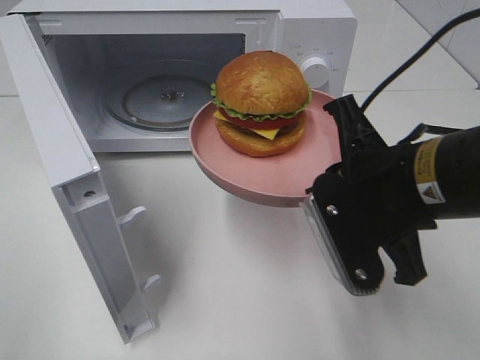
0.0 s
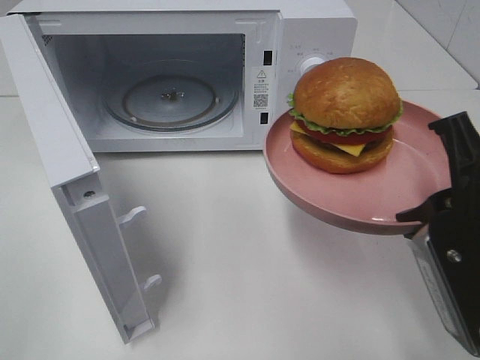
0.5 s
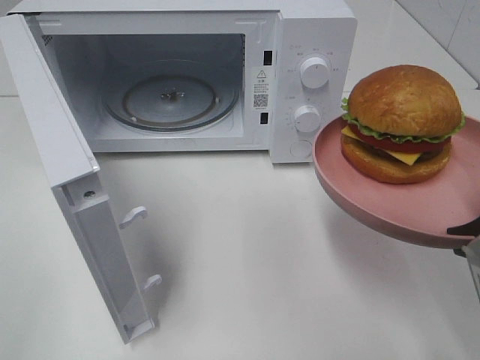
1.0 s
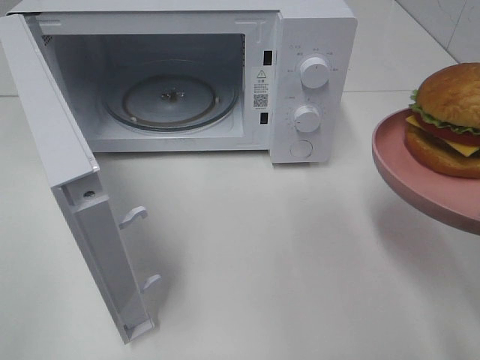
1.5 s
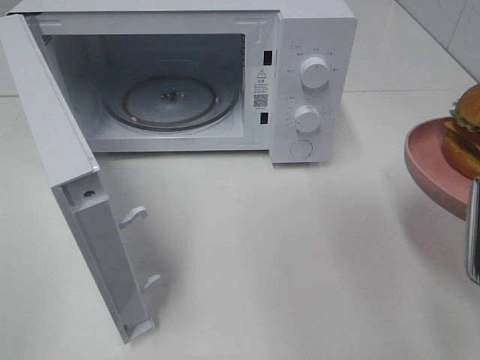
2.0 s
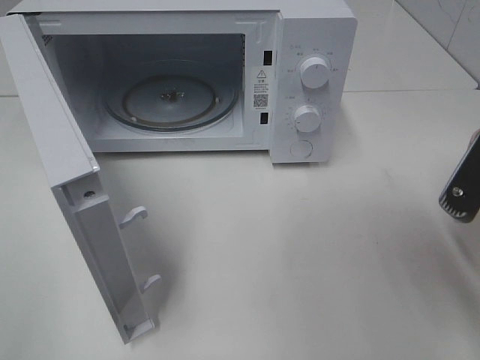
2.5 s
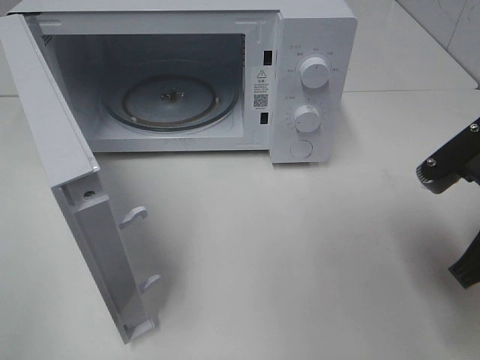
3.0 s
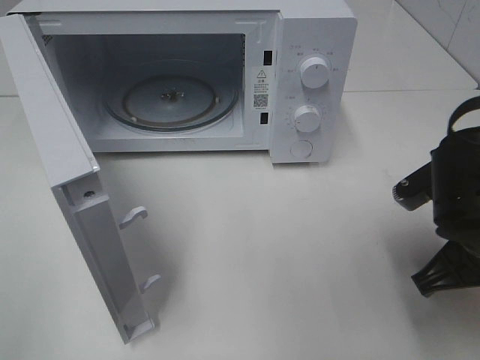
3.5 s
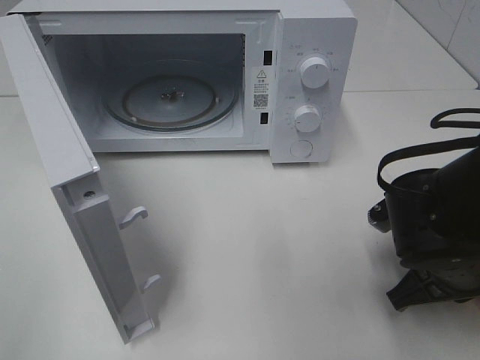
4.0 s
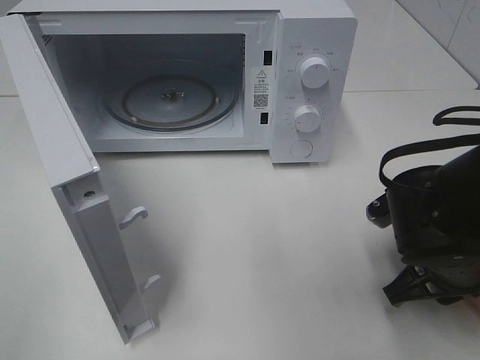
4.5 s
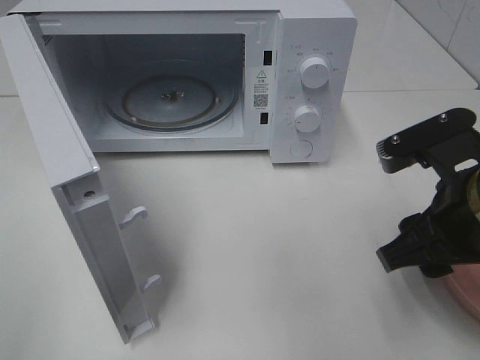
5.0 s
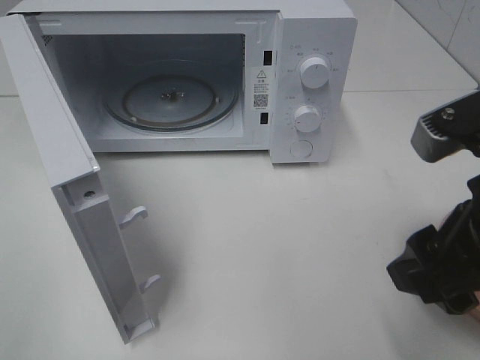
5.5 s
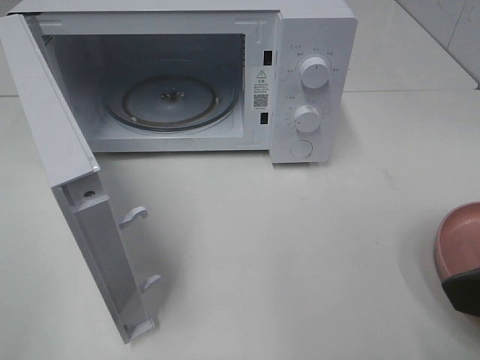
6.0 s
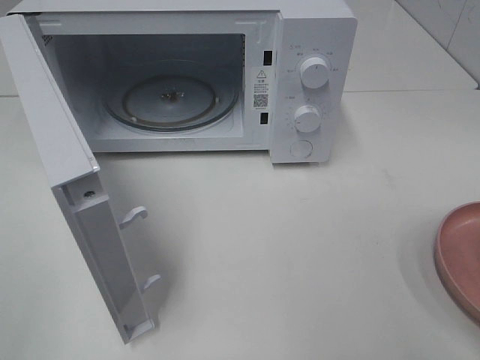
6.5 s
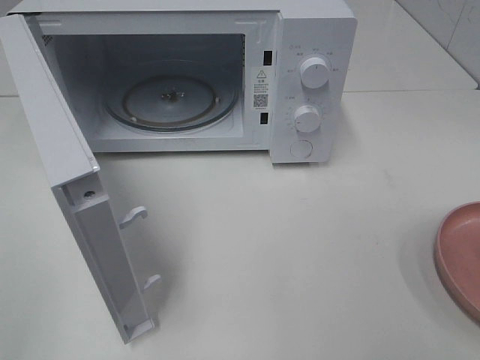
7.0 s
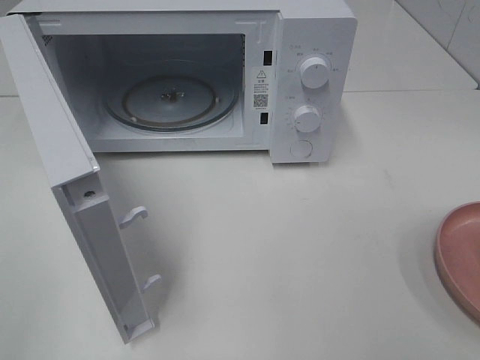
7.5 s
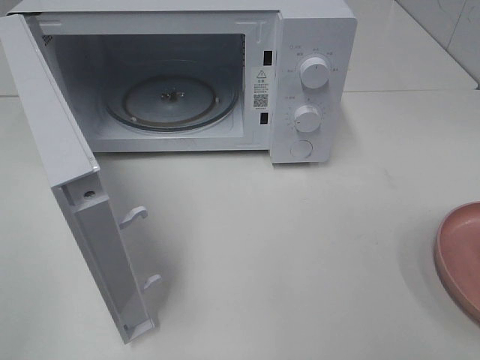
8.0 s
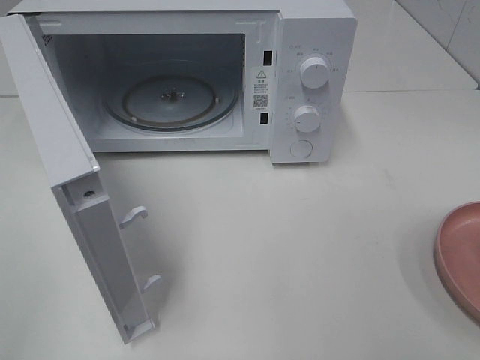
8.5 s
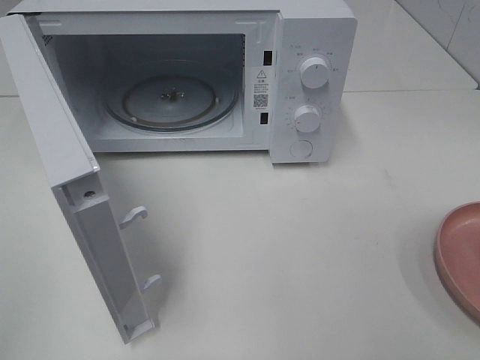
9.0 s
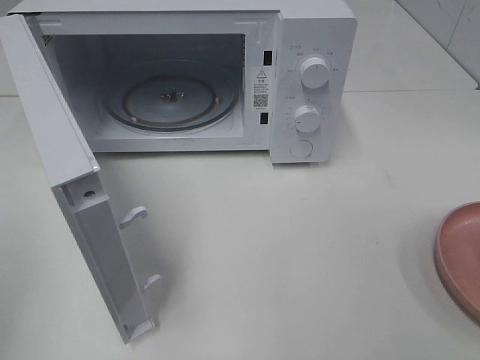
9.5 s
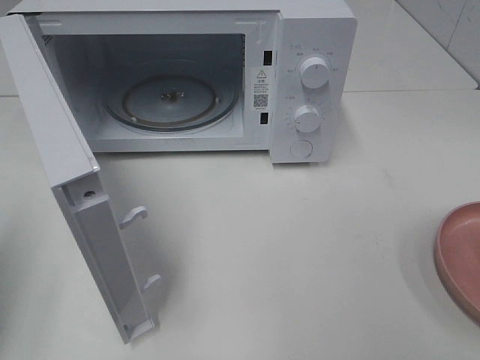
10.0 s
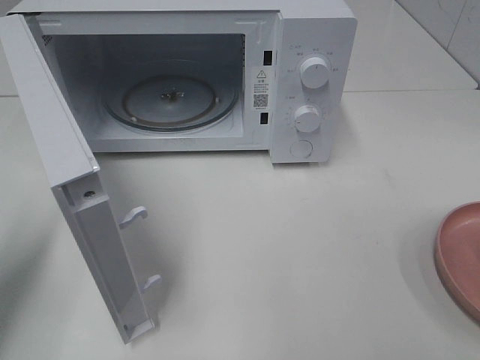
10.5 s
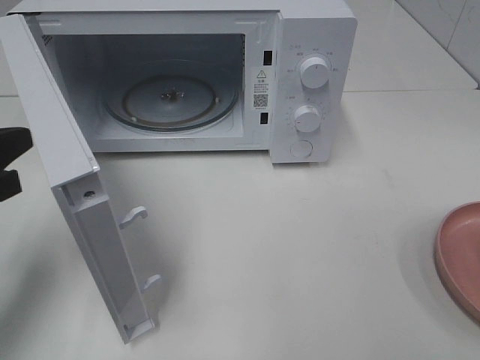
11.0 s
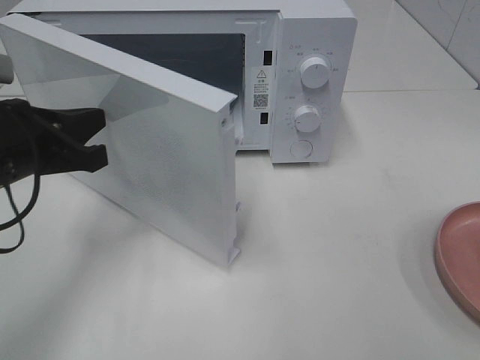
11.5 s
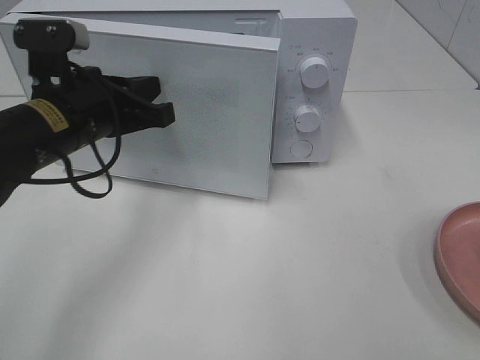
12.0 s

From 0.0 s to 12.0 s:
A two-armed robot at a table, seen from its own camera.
Task of the whole recording: Heat the burger.
Step, from 0.0 s to 4.5 s: Right hand: place the plate on the table.
From 0.0 s to 2.0 s: The right gripper goes approximately 10 cm to the right and backward.
From 2.0 s to 4.0 s: The right gripper travels downward and forward by roughly 15 cm.
From 4.0 s to 6.0 s: The right gripper is displaced upward and backward by about 20 cm, and opens up.
From 6.0 s to 8.0 s: The right gripper shifts approximately 15 cm backward and to the right.
From 8.0 s to 10.0 s: The left gripper travels forward by about 15 cm, and closes.
From 10.0 s to 12.0 s: The left gripper shifts some 25 cm to the right and forward.

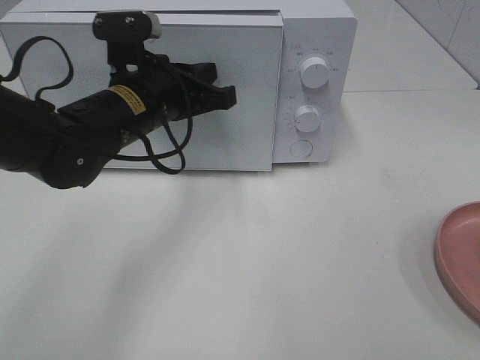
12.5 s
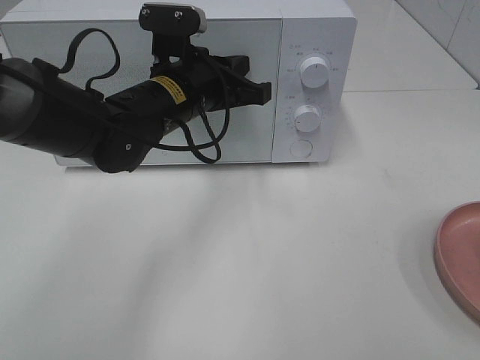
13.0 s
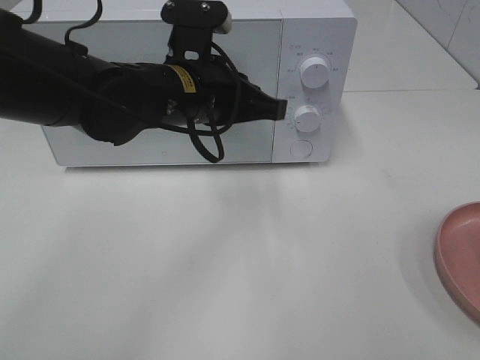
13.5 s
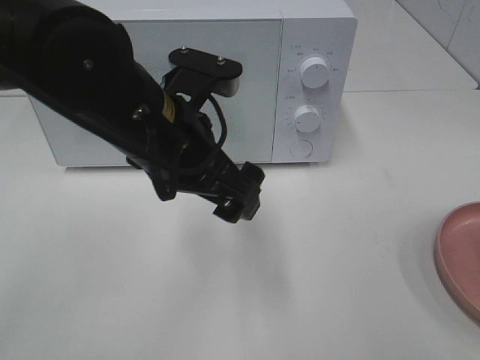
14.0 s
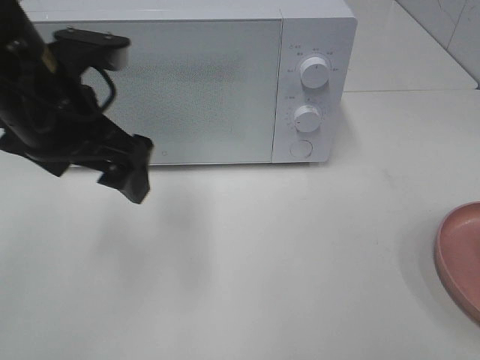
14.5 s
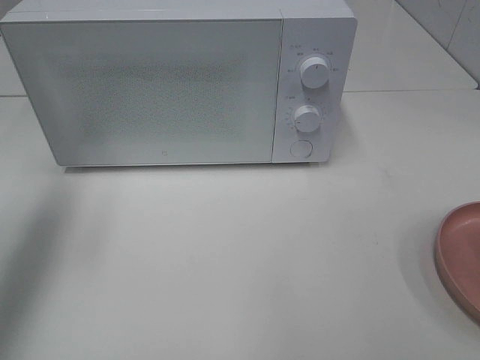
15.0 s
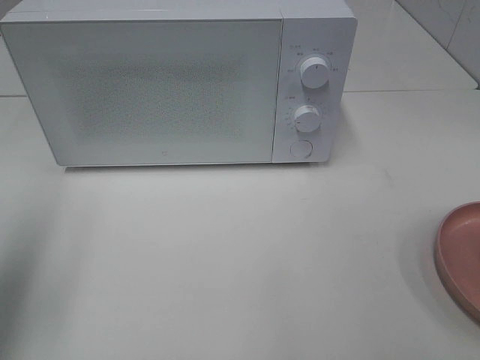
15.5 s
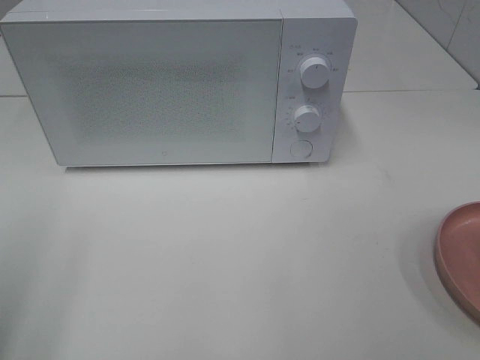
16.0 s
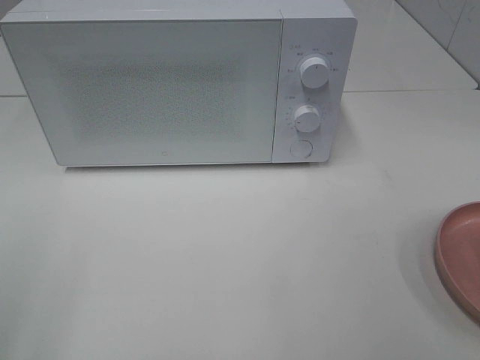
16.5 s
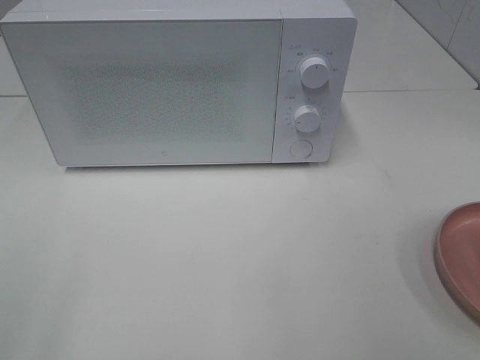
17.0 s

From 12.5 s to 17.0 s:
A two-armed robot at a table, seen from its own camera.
Task of the whole recording: Heat the burger.
From 12.5 s to 14.5 s: The left gripper is displaced upward, backward and to the left by some 10 cm, and opens up.
From 14.5 s to 17.0 s: The left gripper is displaced backward and to the left by some 30 cm.

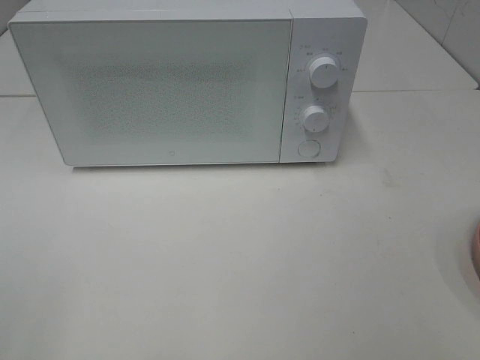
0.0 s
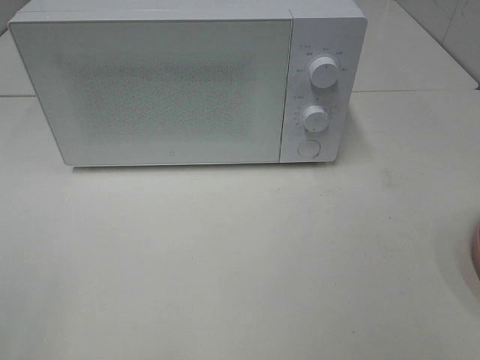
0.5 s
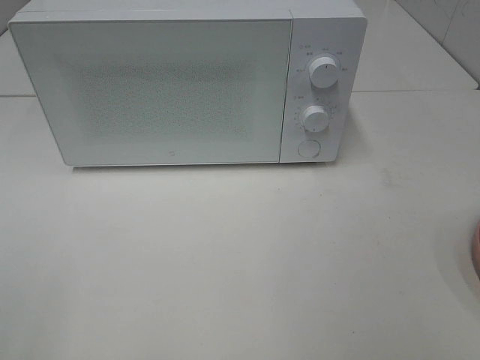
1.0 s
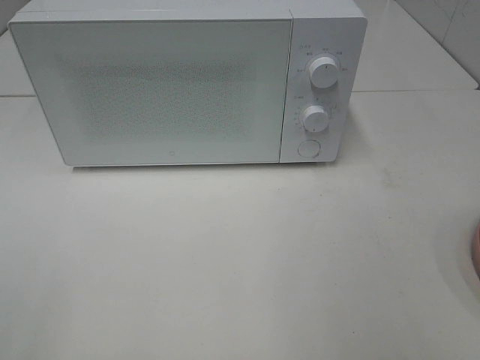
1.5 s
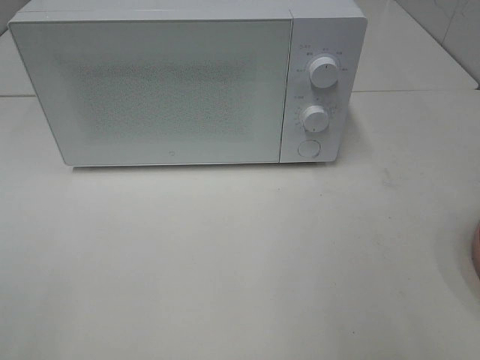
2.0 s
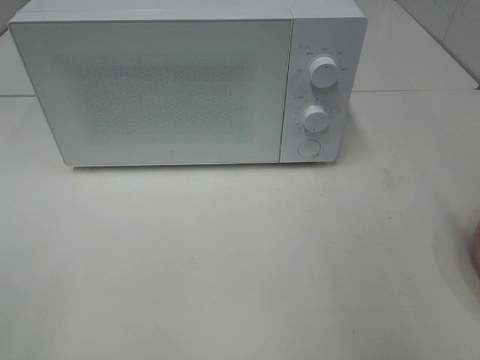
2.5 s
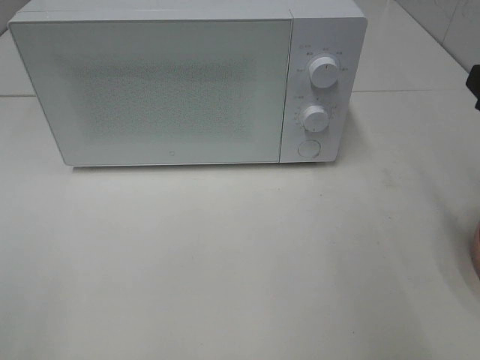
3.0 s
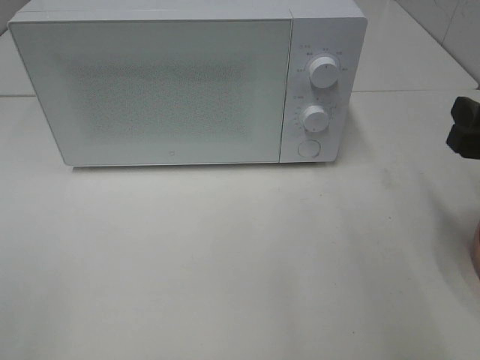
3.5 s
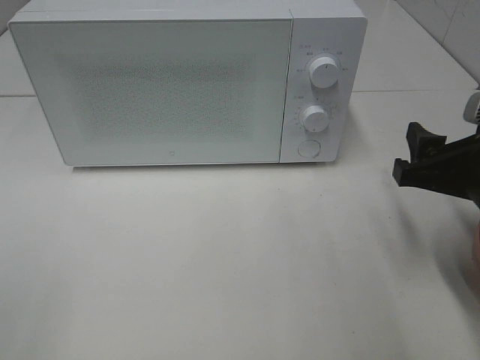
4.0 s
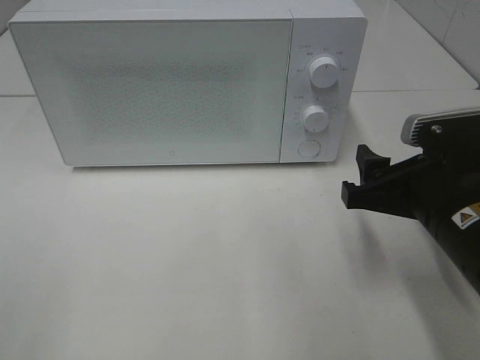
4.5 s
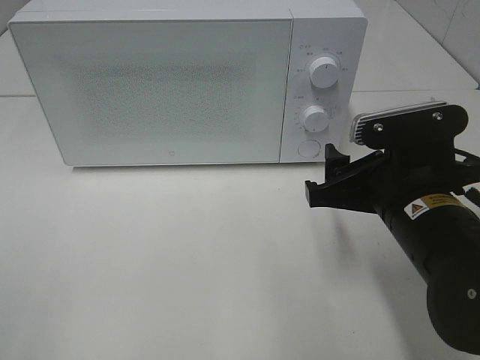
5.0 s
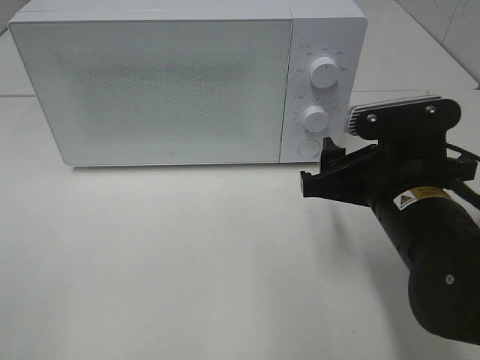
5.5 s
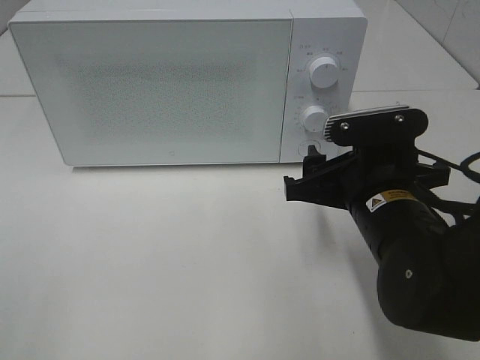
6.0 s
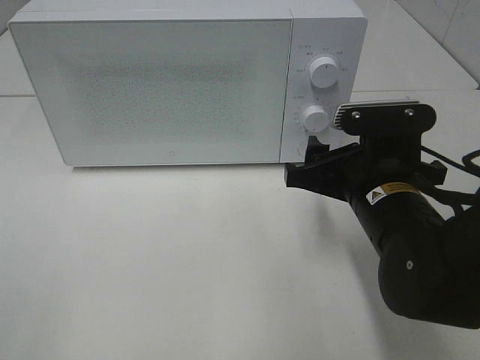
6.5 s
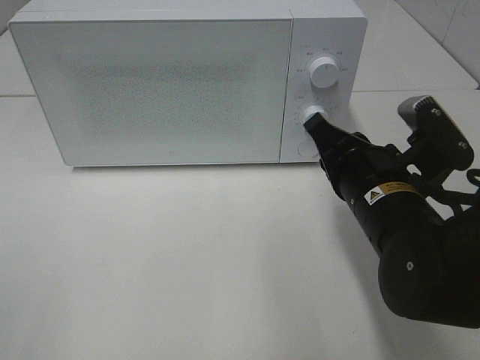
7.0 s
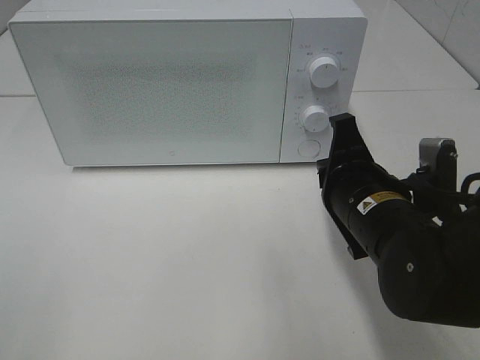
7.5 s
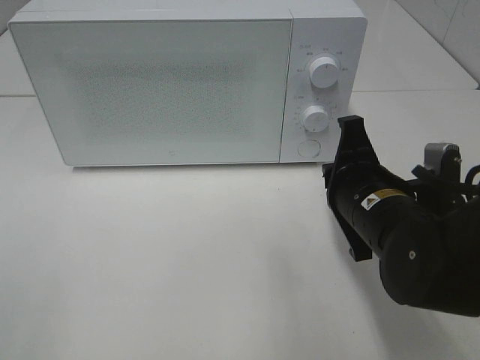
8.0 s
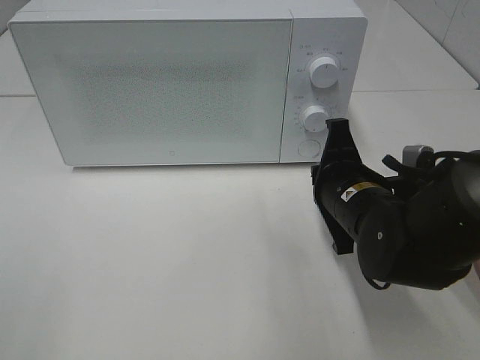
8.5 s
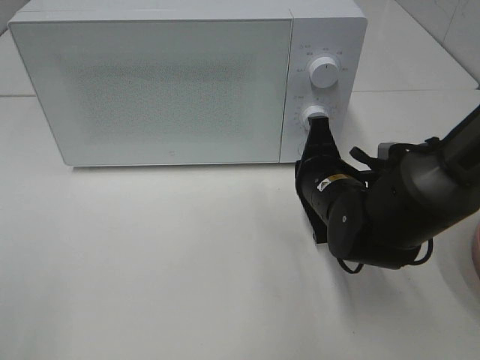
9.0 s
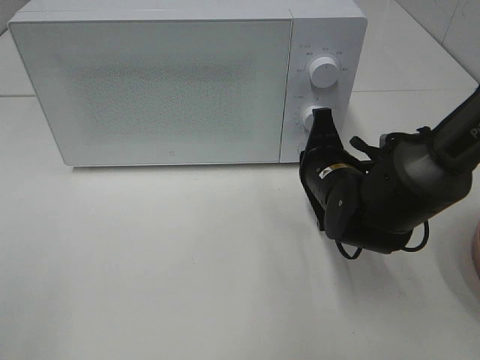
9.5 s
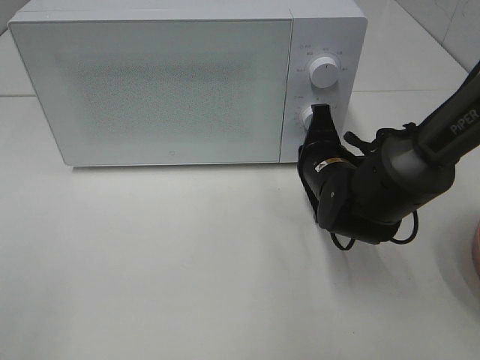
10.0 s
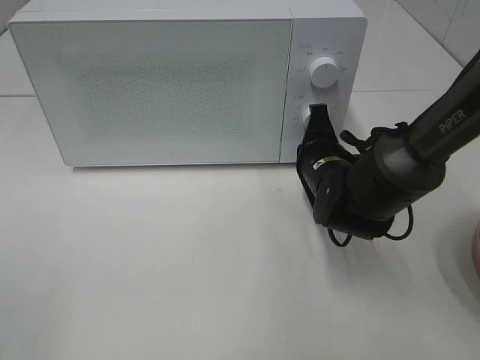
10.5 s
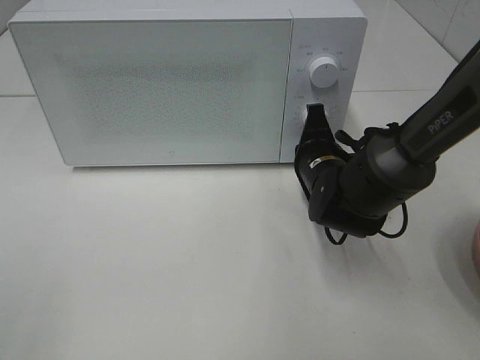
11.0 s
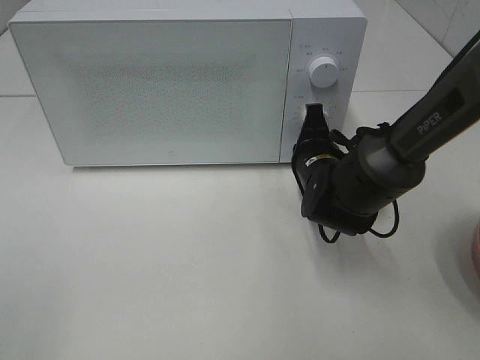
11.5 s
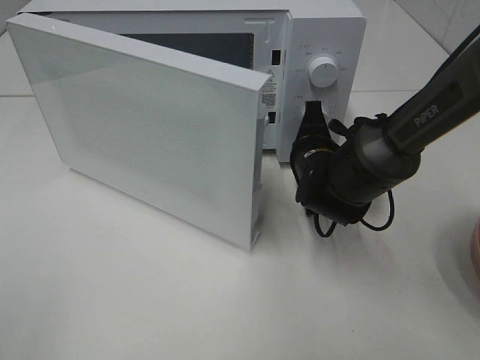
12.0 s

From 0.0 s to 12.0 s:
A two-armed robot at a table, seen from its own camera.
Task of the whole recording: Heat the burger.
From 2.0 s to 4.0 s: The right gripper travels downward and forward by roughly 15 cm.
From 4.0 s to 6.0 s: The right gripper heads to the left, covering some 10 cm.
From 6.0 s to 8.0 s: The right gripper closes.
From 8.0 s to 10.0 s: The right gripper heads forward, covering some 10 cm.
